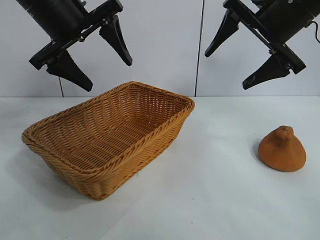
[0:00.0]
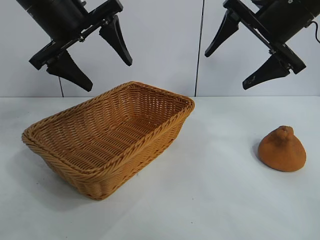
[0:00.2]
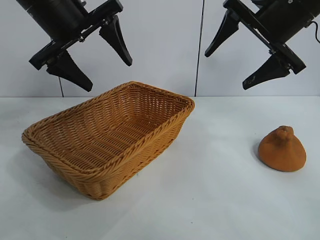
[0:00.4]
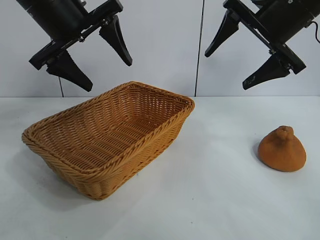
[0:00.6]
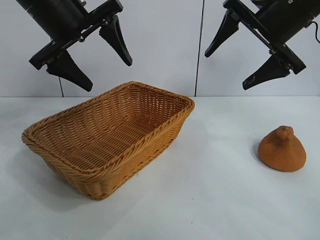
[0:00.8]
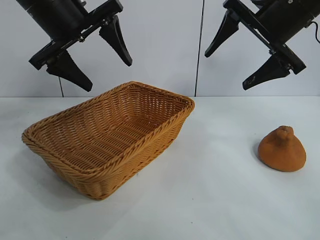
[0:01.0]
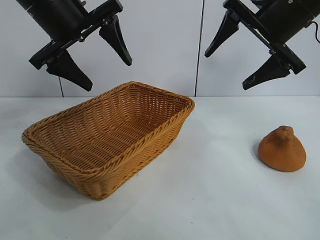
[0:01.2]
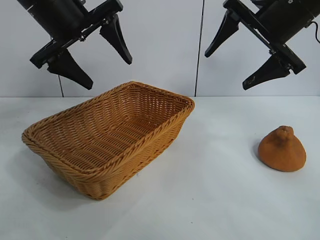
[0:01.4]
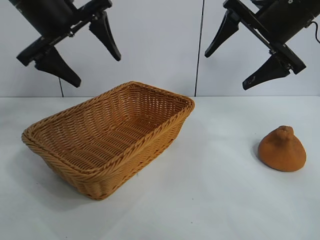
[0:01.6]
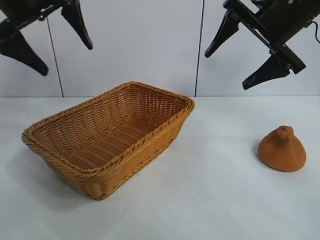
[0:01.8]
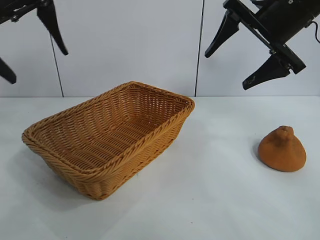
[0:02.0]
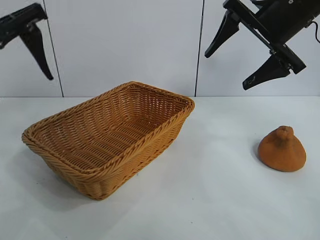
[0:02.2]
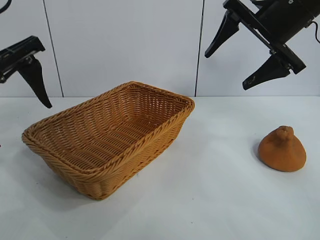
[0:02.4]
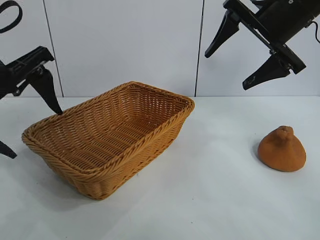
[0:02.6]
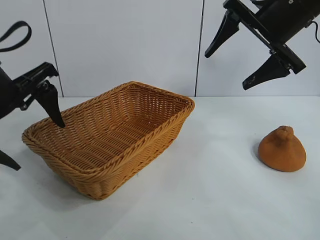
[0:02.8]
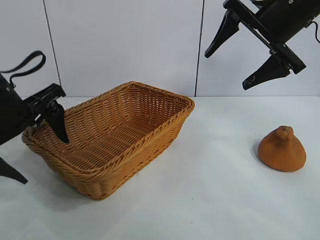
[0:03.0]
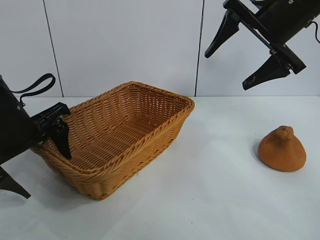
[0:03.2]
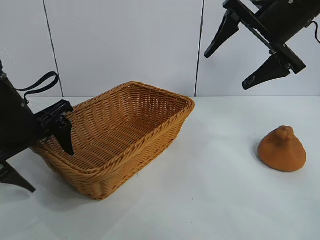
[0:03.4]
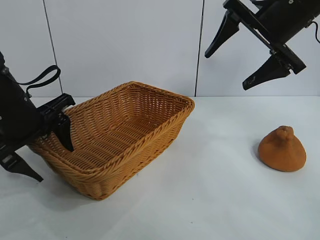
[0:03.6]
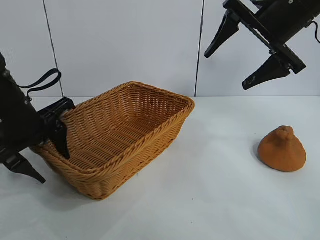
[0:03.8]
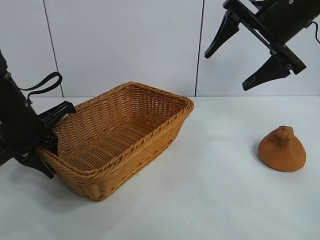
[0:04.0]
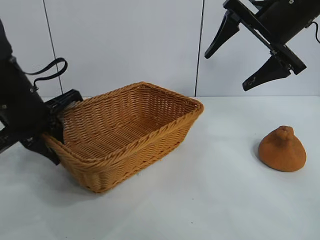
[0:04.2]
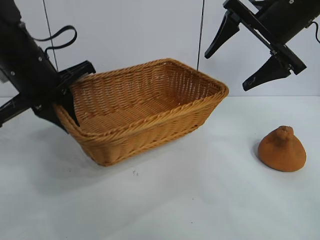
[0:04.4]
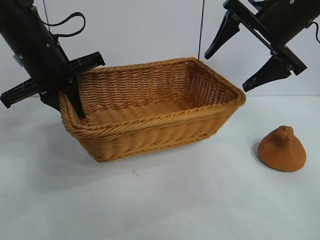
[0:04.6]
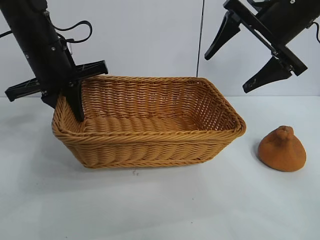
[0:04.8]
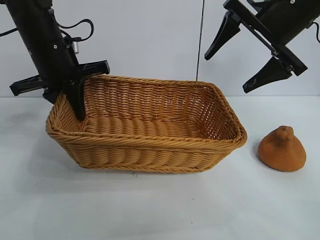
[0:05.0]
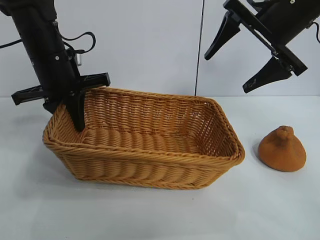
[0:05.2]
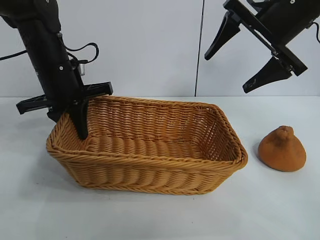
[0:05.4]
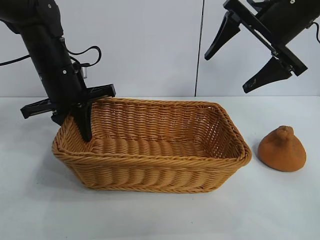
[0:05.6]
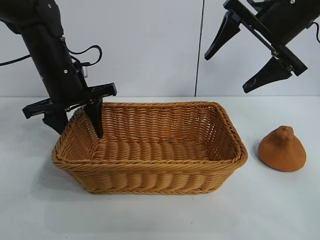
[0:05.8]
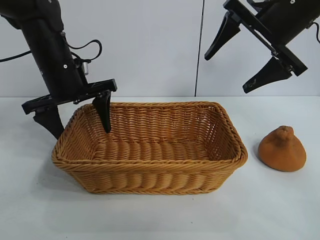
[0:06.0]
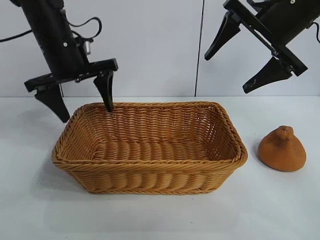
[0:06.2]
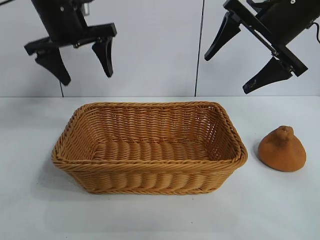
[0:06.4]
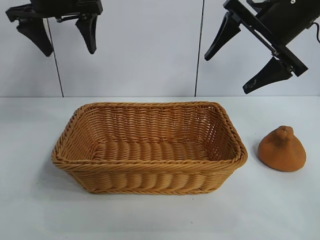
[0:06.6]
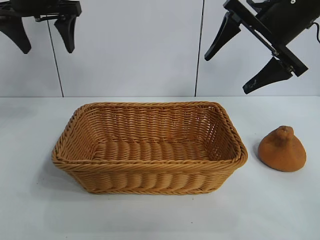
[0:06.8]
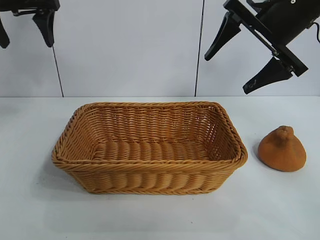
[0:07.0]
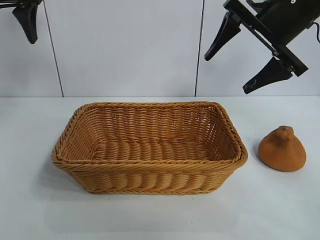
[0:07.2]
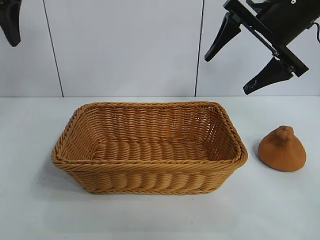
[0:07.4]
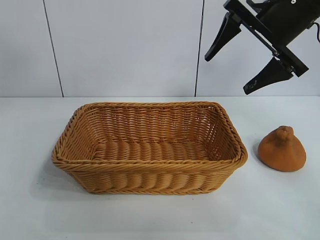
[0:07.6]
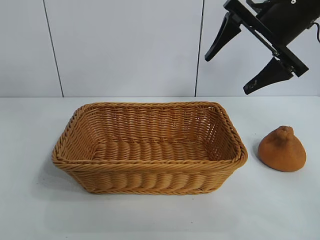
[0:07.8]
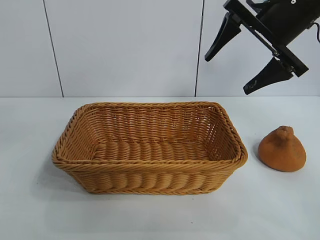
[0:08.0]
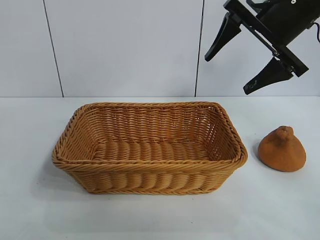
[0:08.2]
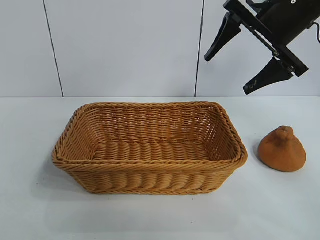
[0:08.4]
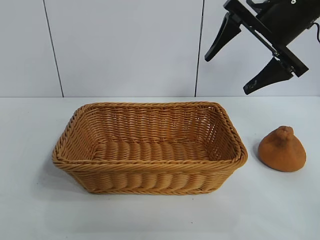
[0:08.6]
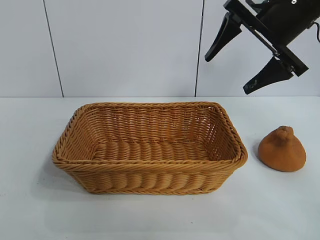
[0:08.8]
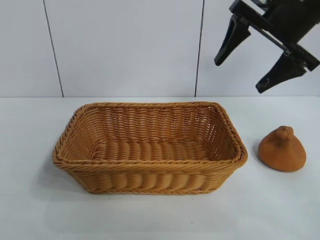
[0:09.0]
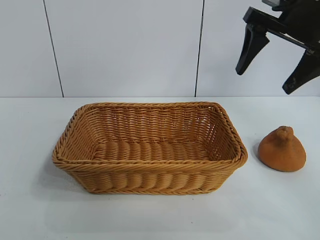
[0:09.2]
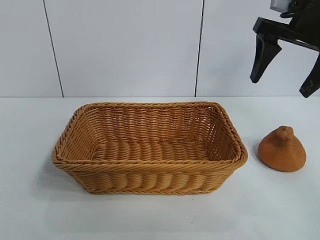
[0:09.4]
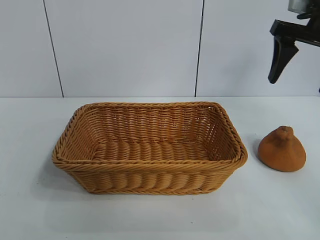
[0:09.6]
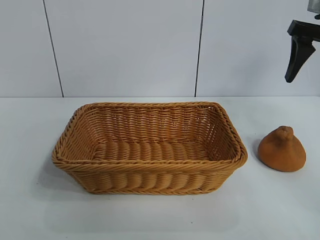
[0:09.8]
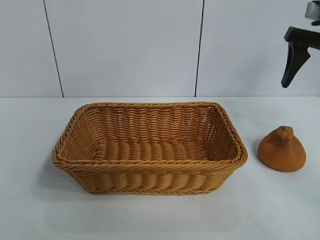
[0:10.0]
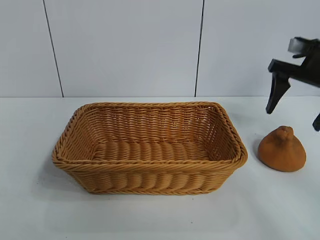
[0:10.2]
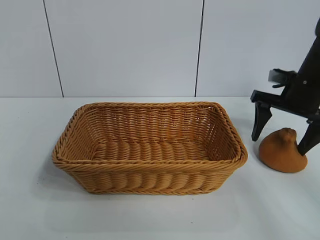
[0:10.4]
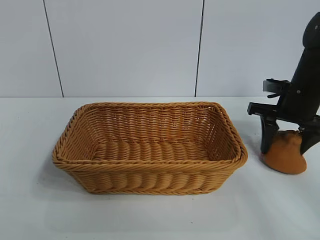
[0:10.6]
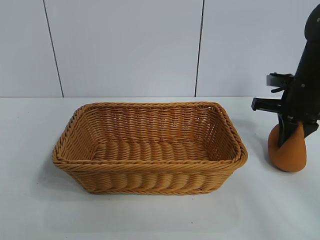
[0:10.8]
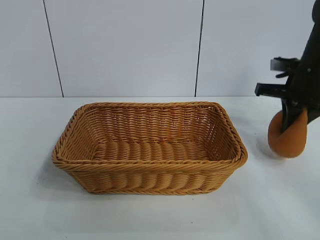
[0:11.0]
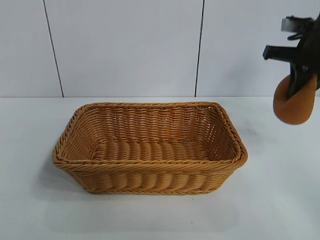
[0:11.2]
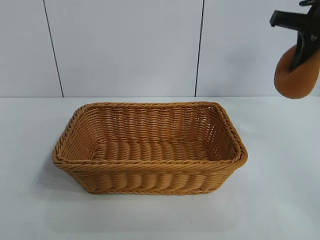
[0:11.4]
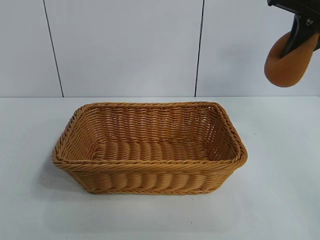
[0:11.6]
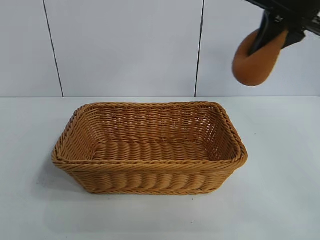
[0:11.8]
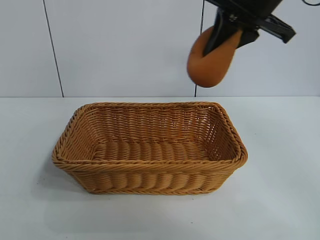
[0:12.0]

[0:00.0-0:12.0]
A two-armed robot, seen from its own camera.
Task of the whole recording: pick up the orange and put it into the basket.
Step, 0:00.0 to 0:04.0: Grasp the basket with left gripper.
Step, 0:04.4 to 0:06.0: Place the basket in the center of view with left gripper.
Step, 0:06.2 to 0:10.8: Grasp the orange with right gripper.
